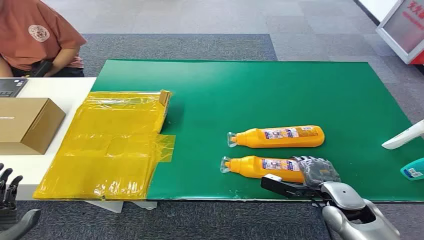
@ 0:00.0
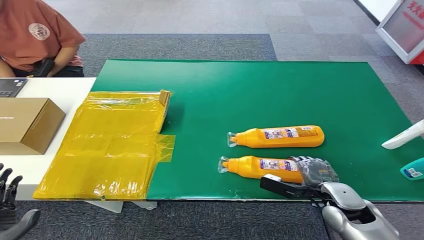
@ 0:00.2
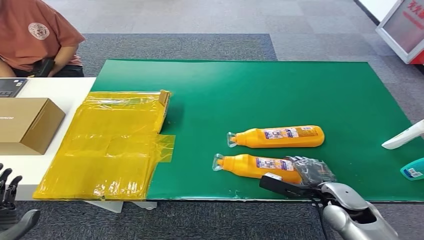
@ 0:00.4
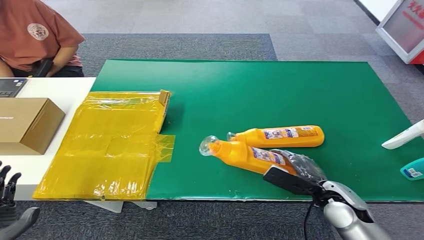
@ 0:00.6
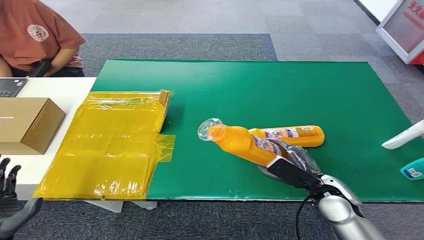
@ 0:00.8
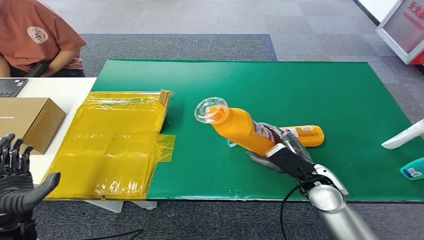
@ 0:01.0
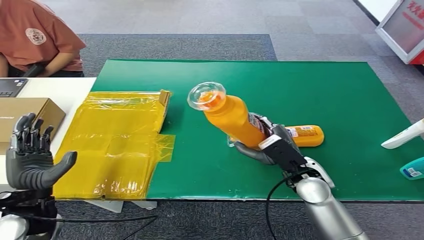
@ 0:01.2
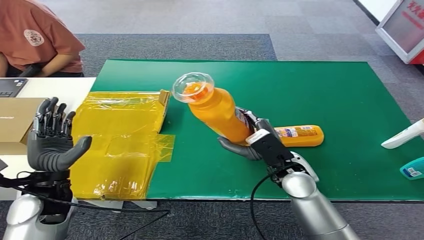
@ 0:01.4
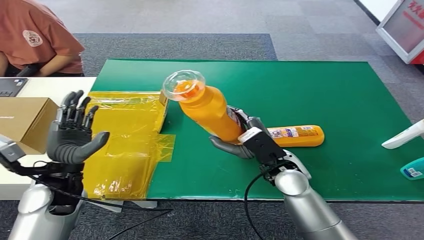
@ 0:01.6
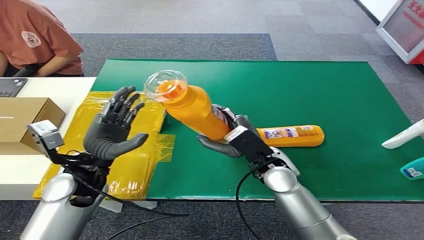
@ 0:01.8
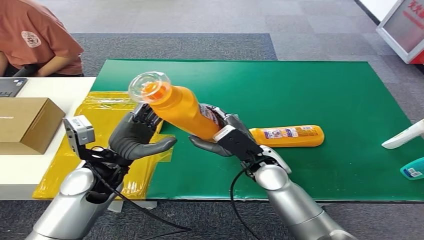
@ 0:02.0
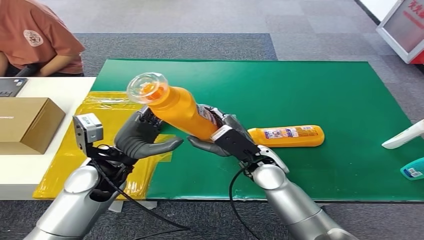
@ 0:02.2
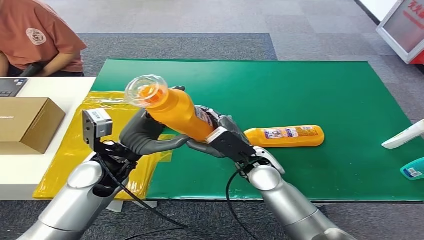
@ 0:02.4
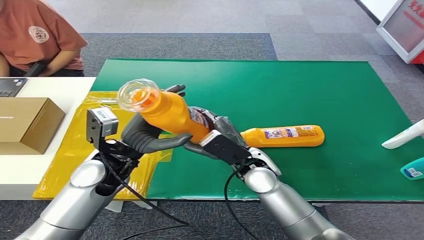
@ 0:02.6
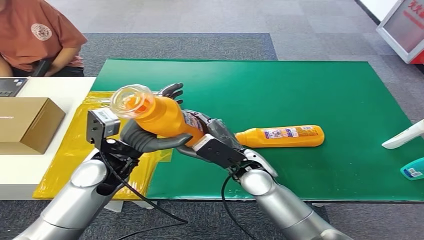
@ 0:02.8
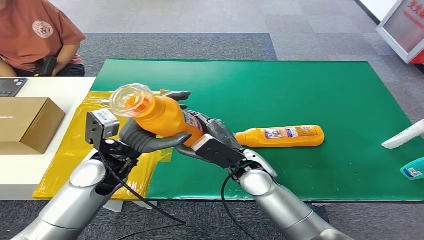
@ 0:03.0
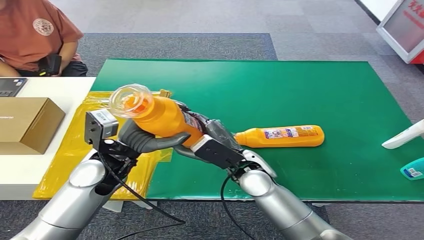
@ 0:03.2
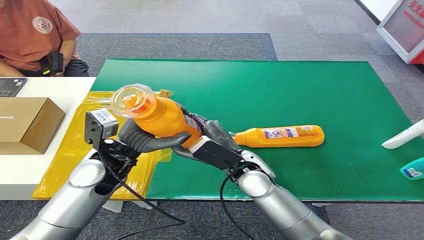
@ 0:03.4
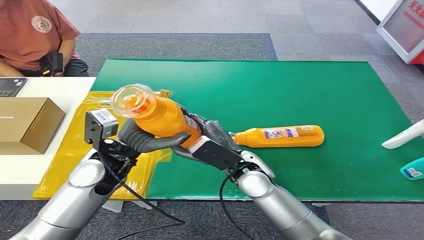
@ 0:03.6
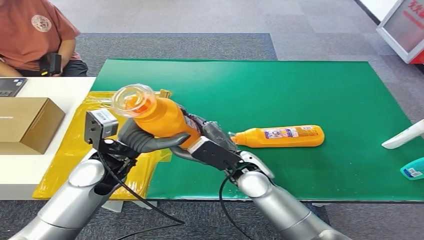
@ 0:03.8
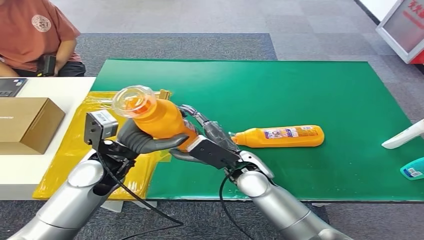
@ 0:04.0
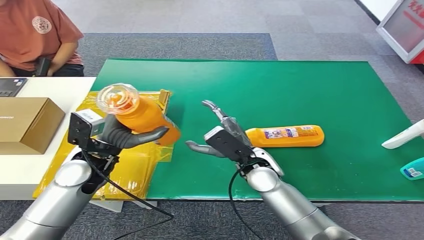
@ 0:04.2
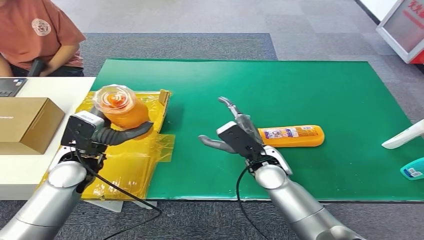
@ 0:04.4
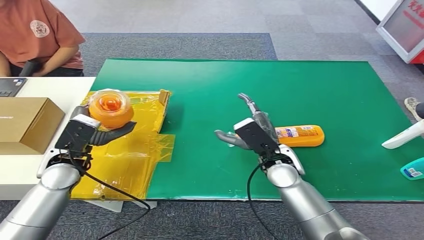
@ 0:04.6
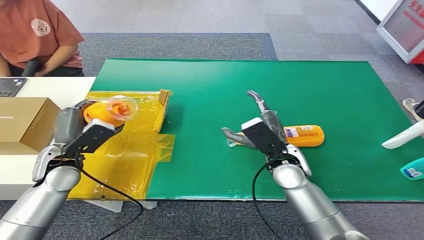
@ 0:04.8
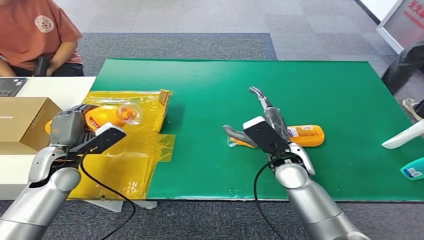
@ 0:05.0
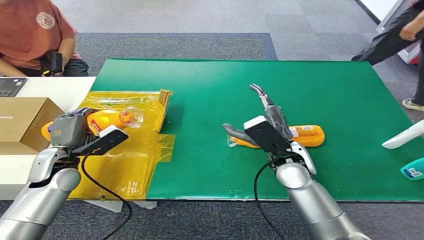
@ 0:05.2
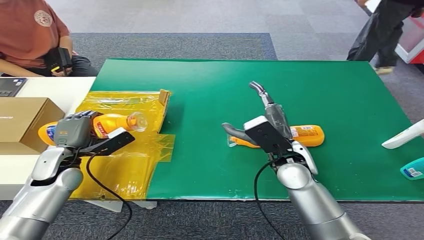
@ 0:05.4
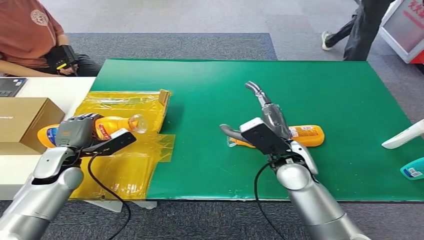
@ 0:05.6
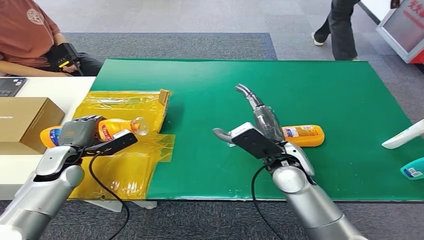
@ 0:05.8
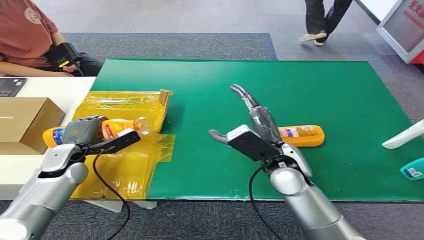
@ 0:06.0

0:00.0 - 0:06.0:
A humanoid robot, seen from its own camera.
Step, 0:00.0 - 0:01.2: Pick up the bottle from the table.
Step, 0:01.6 - 0:06.0: Turn the bottle to the front side.
